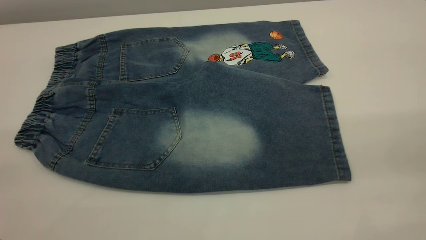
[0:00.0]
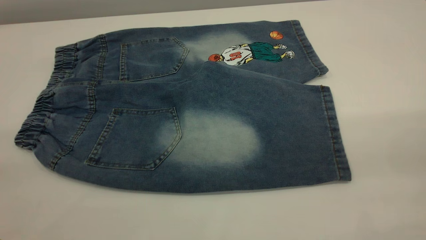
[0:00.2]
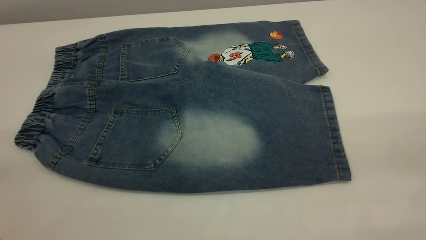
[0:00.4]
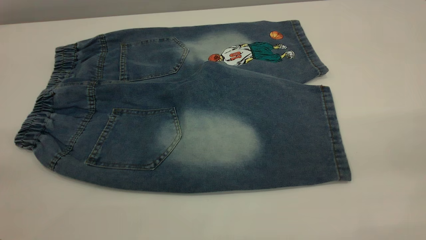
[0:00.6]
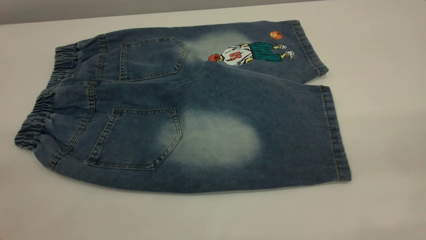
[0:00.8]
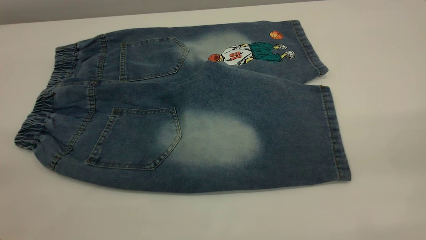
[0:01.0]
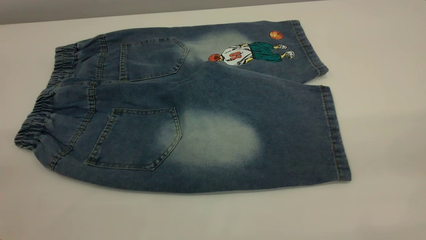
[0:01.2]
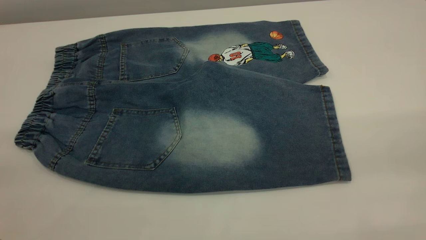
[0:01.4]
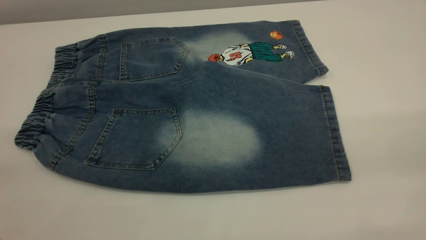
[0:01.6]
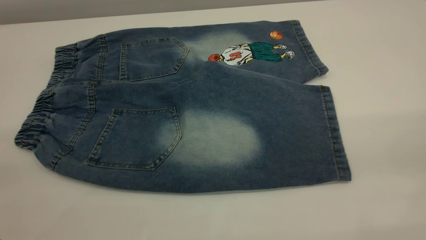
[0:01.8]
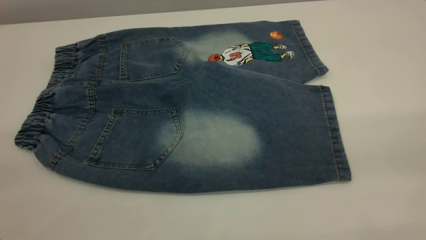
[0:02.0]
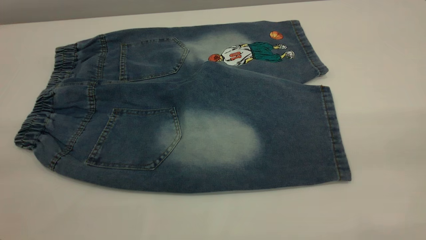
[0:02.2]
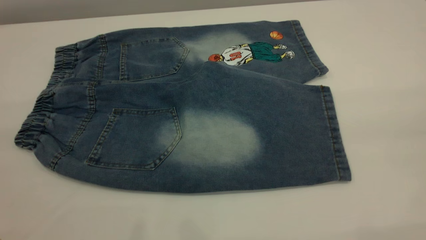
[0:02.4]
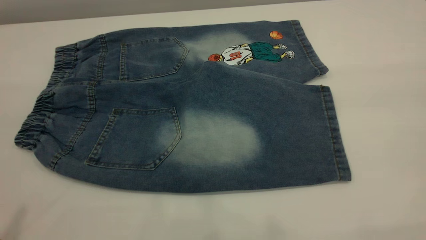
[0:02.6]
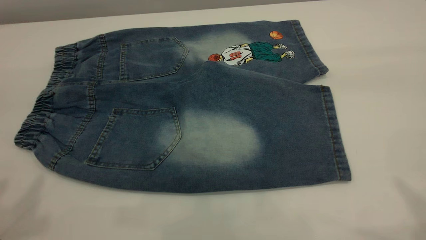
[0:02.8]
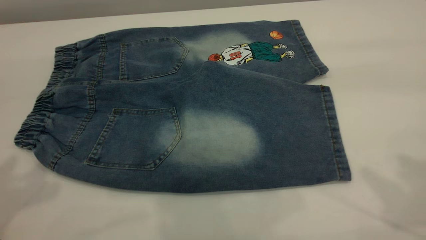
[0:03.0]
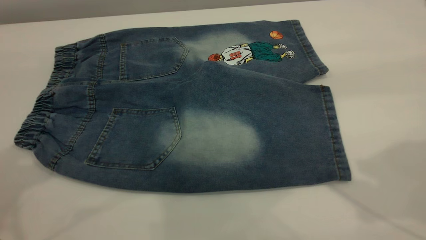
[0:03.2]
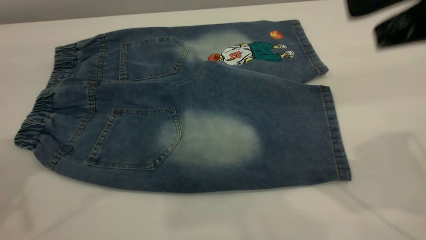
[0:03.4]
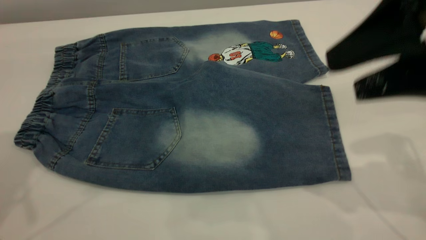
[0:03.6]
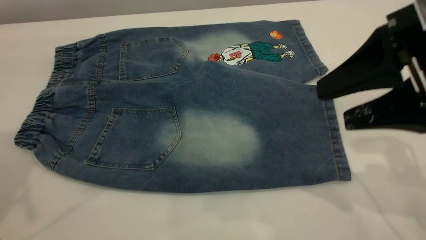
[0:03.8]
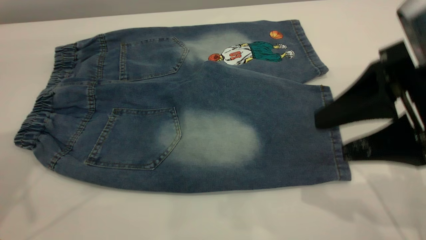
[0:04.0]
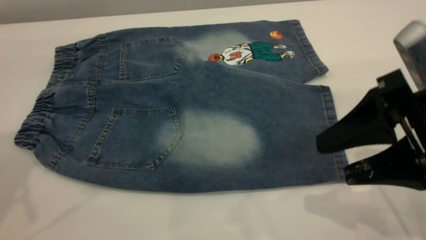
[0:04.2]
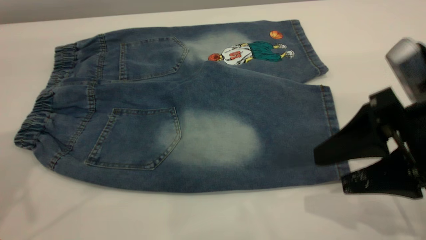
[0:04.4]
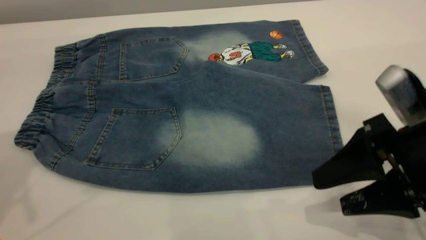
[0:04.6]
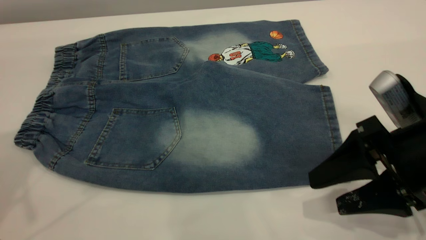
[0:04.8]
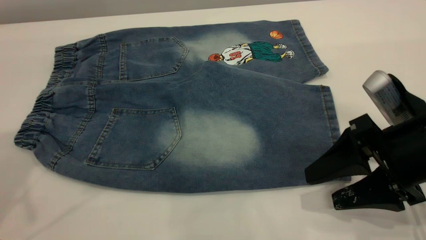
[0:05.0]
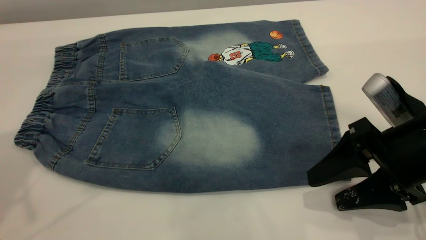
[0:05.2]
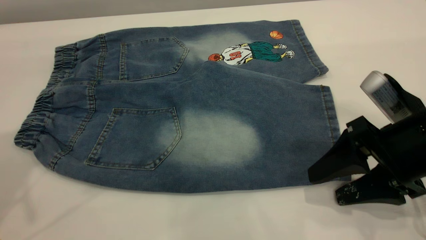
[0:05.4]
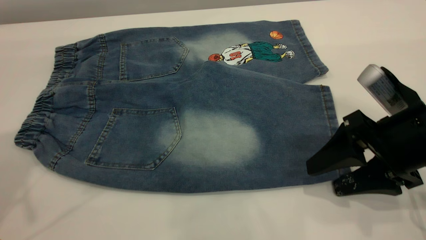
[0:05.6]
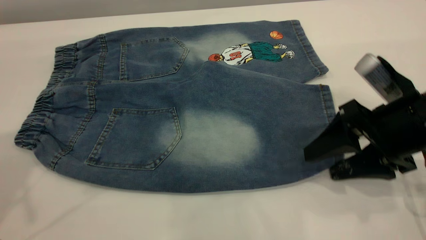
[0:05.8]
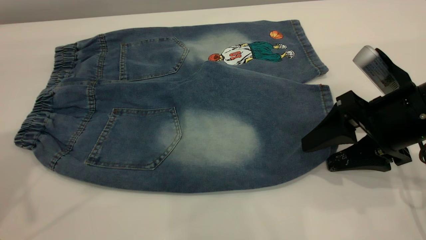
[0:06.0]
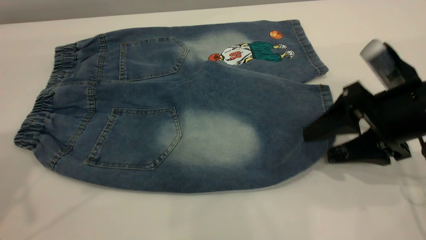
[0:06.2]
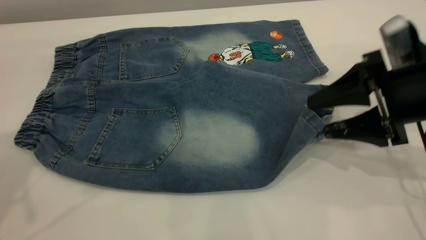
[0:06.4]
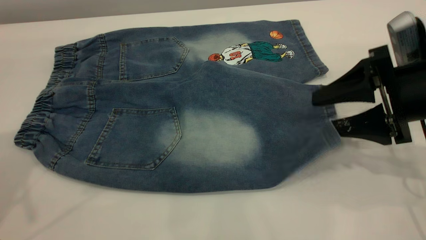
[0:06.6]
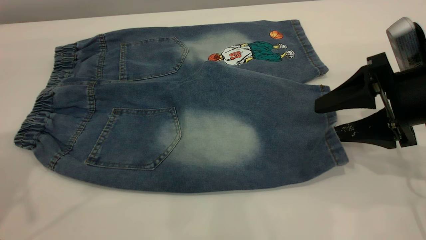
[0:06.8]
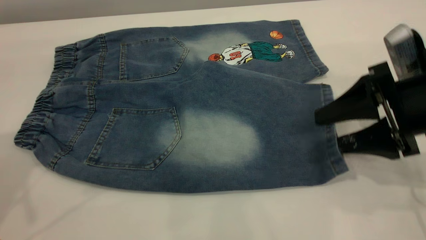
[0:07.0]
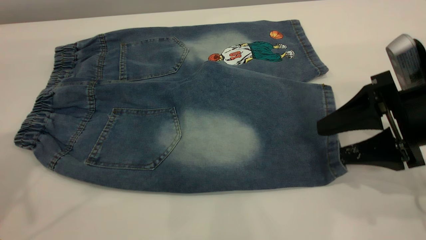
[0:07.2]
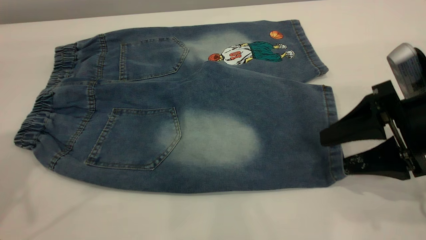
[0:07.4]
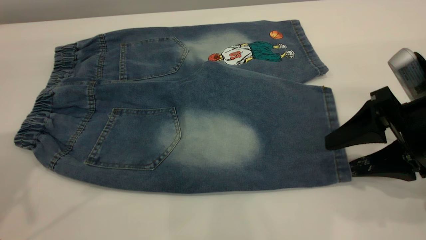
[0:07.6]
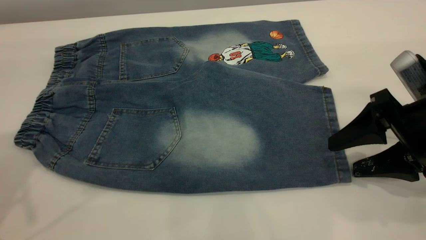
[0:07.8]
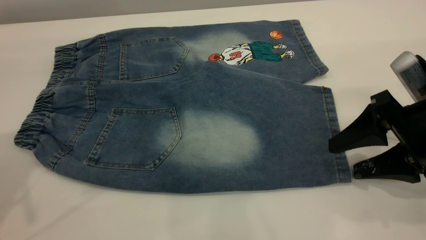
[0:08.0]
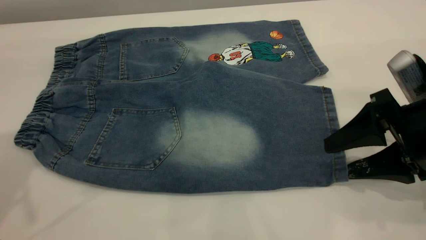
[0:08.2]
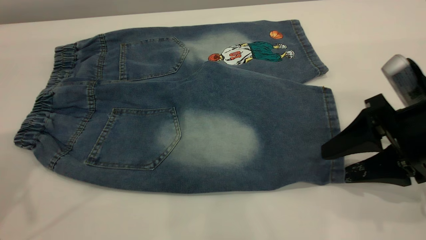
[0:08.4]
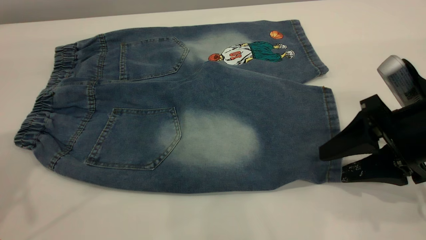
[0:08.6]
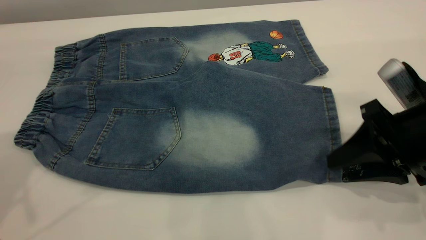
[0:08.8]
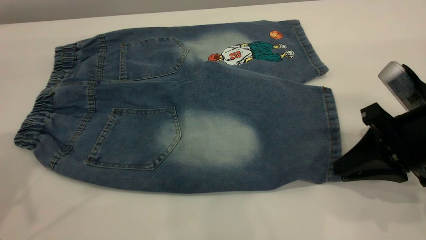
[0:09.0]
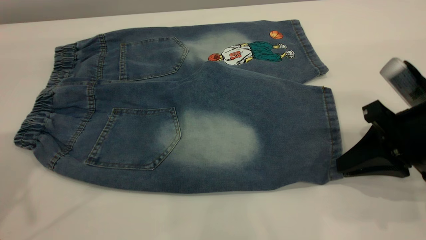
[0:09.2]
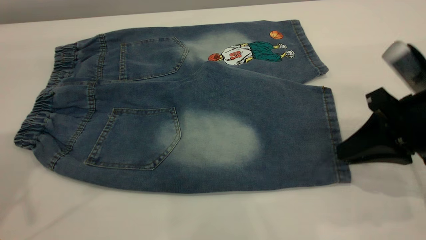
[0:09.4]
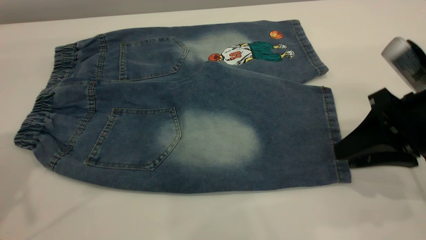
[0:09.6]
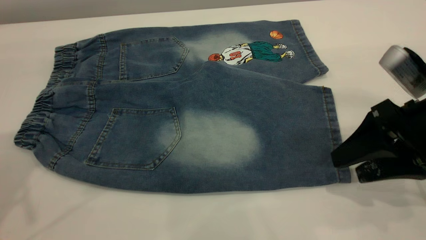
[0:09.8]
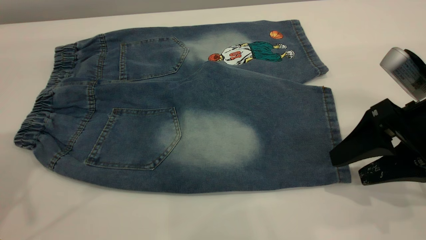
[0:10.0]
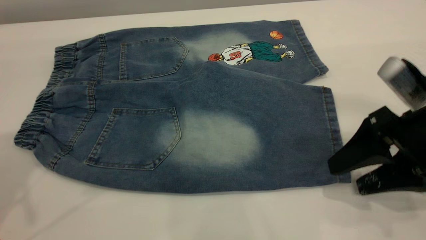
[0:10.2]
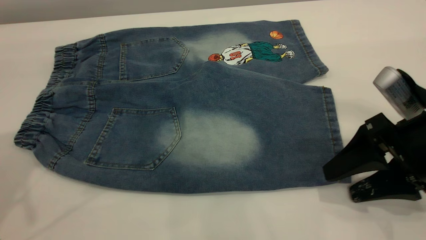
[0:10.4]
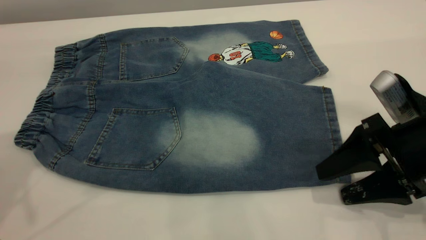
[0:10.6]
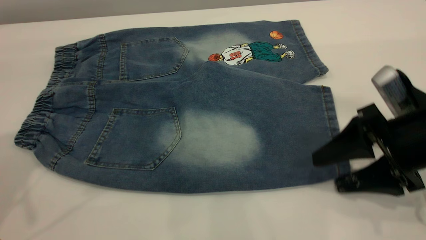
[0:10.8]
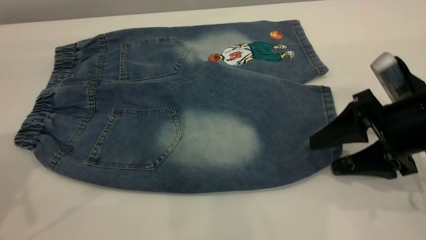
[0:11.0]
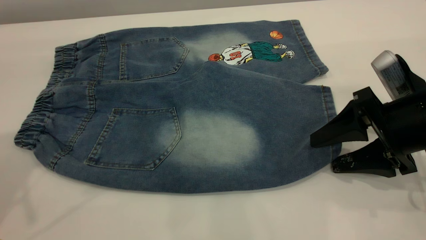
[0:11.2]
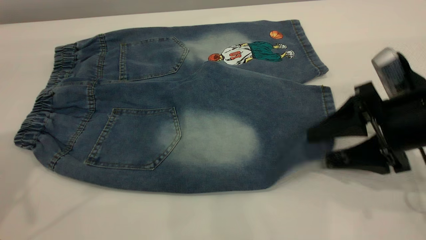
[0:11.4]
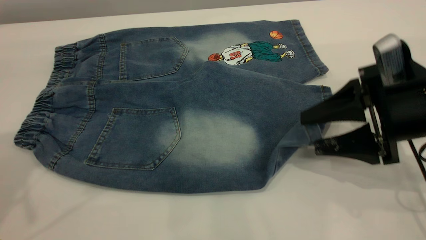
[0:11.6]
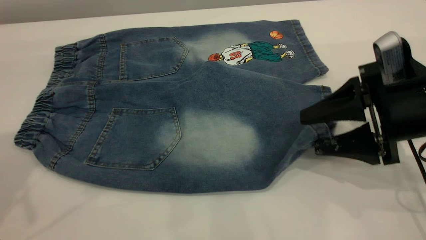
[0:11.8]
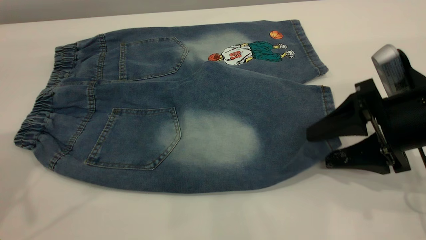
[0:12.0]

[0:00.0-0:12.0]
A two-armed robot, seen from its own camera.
0:00.0 to 0:01.6: Both grippers stay about where they are.
0:03.0 to 0:04.4: The right gripper moves downward, some 20 cm. The left gripper travels forward by approximately 5 cm.
0:04.4 to 0:06.0: The right gripper heads forward, covering about 5 cm.
0:06.0 to 0:07.6: The grippers move only a little.
0:07.6 to 0:09.0: The right gripper closes up.
0:09.0 to 0:10.4: The right gripper opens.

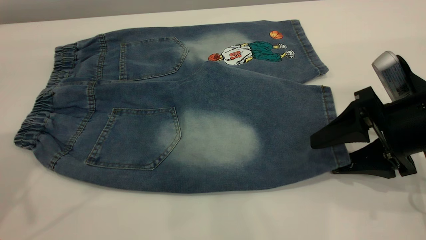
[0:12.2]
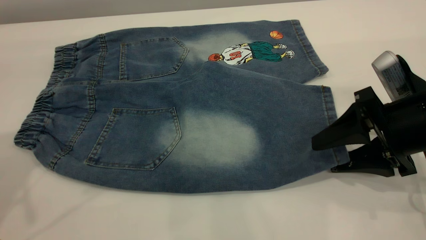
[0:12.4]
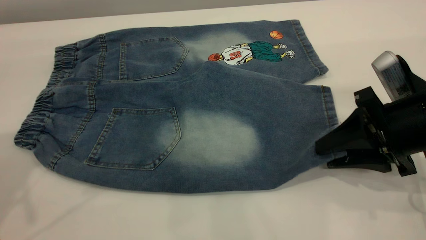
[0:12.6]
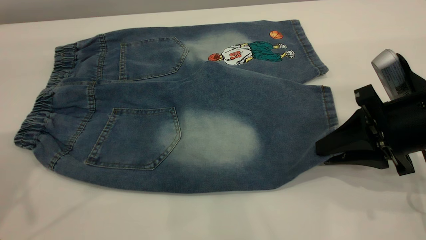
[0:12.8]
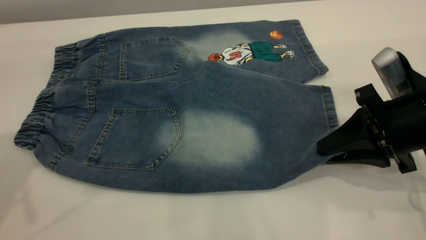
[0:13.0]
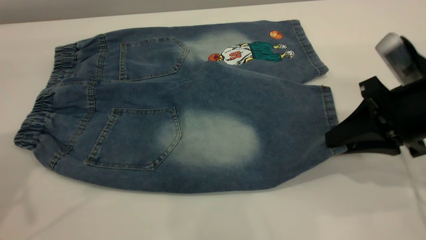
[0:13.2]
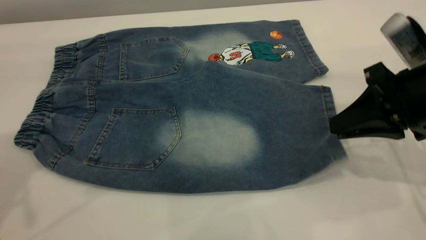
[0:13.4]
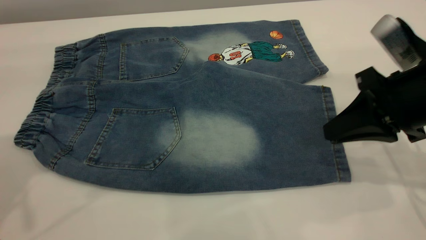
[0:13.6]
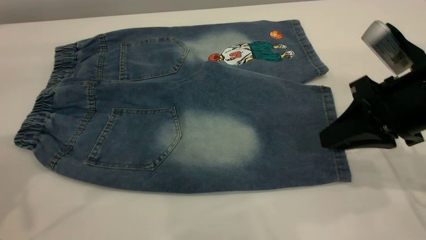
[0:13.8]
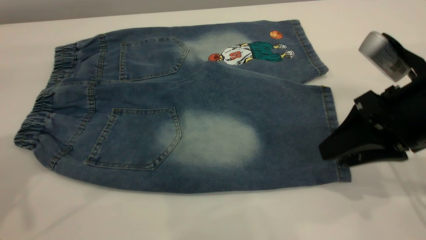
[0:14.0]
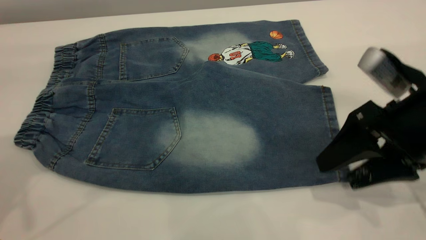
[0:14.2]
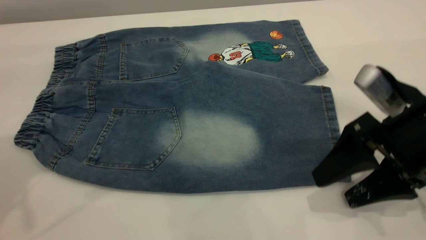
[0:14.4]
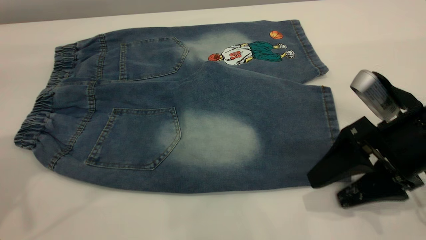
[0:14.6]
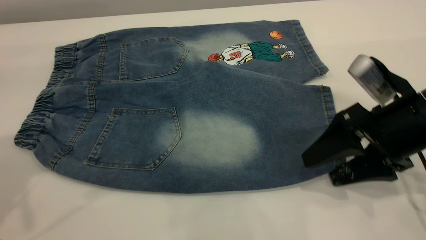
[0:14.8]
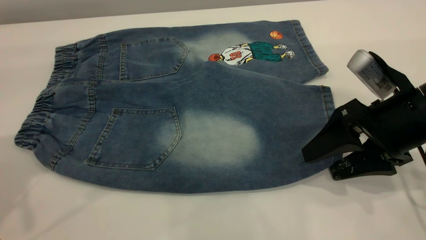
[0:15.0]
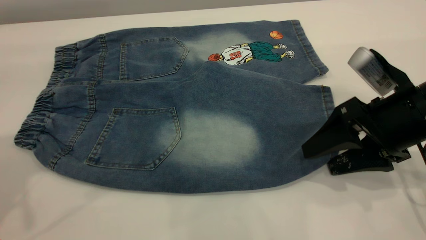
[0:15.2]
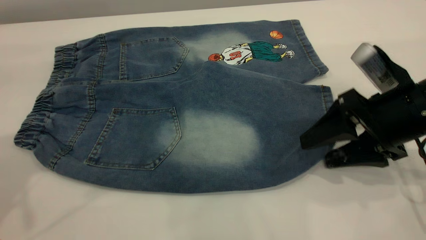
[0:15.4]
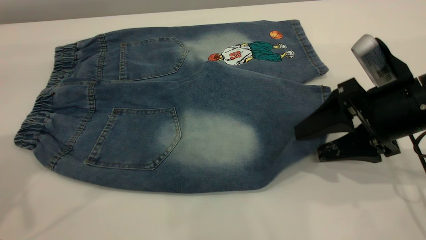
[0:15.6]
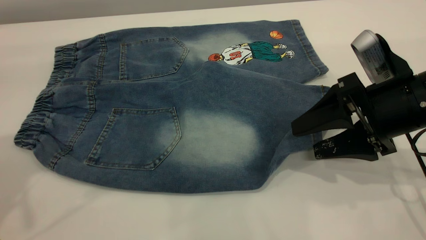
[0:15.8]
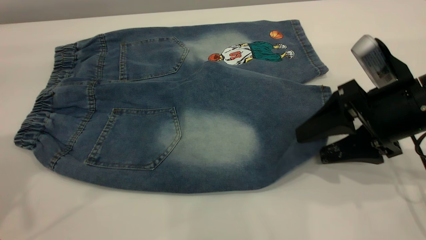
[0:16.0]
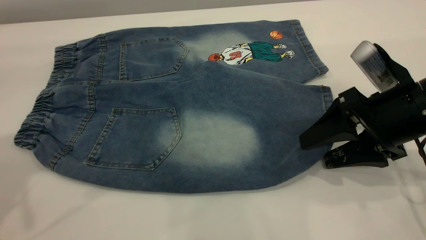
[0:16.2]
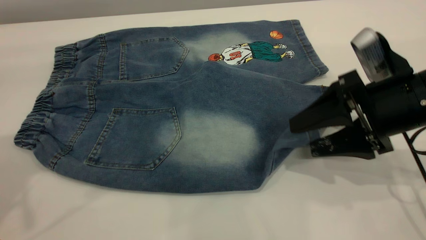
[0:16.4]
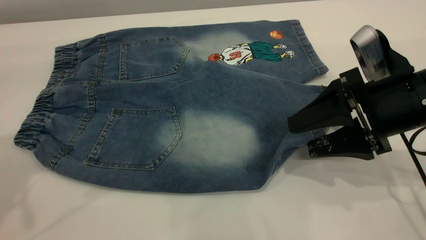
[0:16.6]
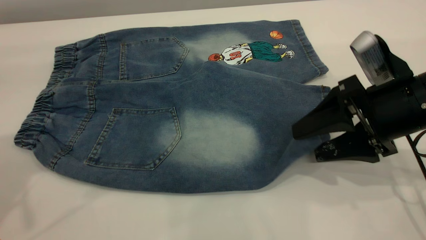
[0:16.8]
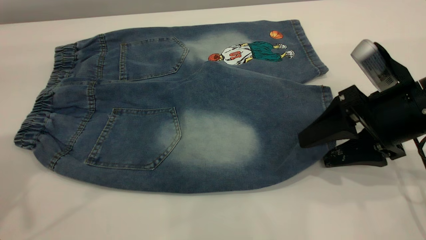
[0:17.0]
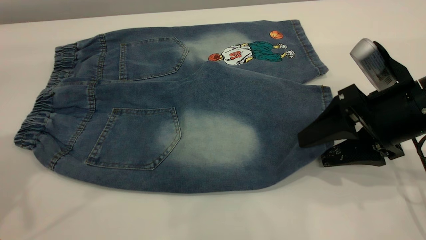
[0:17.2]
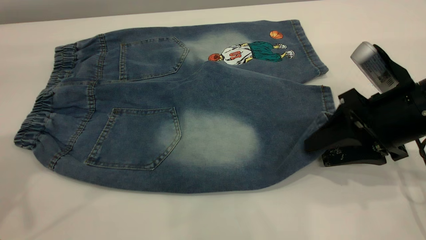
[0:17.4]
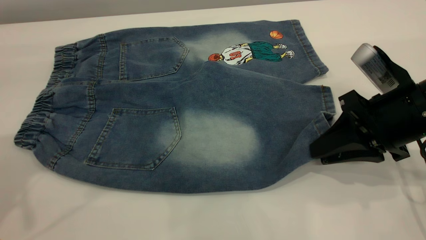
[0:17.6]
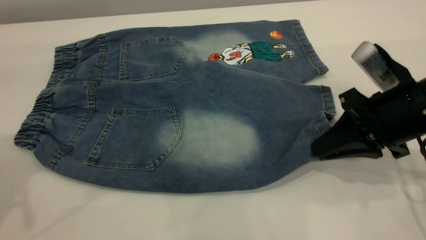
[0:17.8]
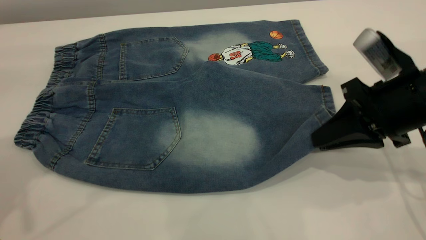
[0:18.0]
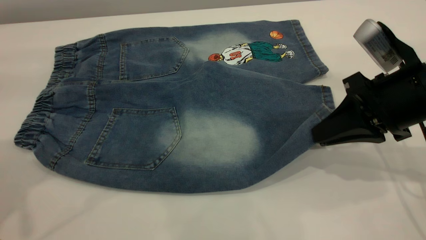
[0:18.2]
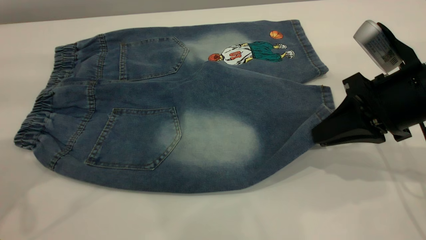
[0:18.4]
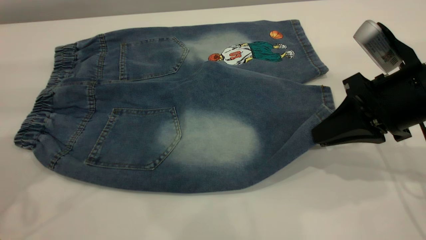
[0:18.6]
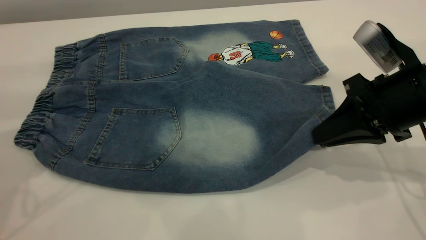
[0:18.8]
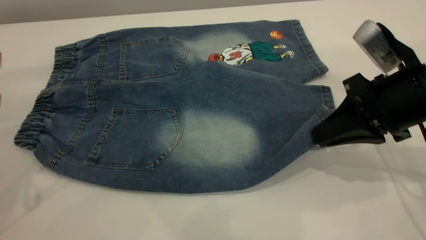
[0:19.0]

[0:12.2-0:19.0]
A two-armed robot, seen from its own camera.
0:12.2 to 0:13.6: The right gripper closes its fingers.
0:13.6 to 0:15.0: The right gripper opens up.
0:15.0 to 0:16.2: The grippers move only a little.
0:16.2 to 0:17.6: The right gripper closes its fingers.
0:17.6 to 0:19.0: The left gripper heads downward, covering about 10 cm.
